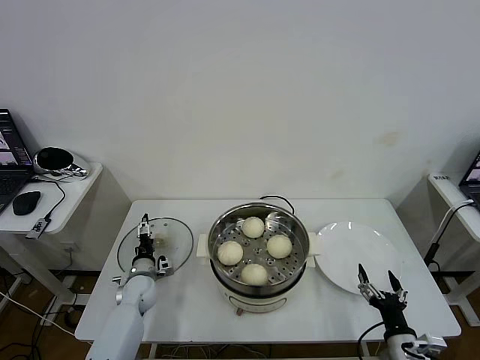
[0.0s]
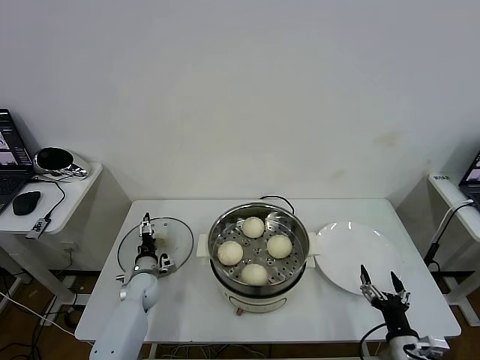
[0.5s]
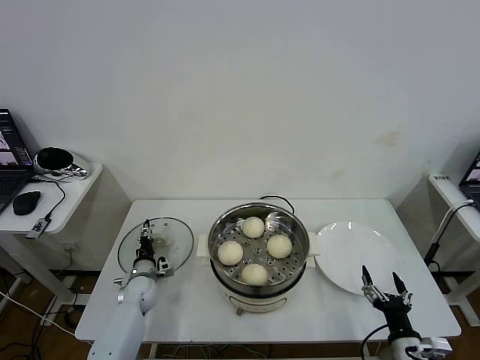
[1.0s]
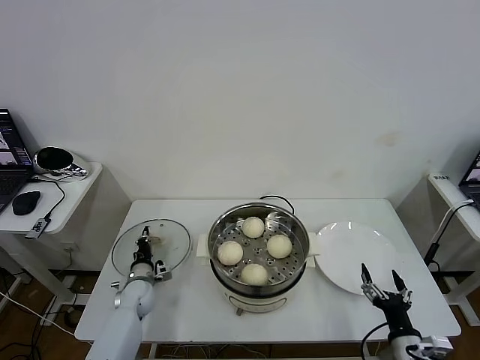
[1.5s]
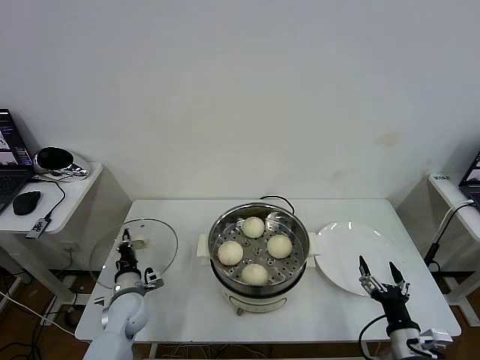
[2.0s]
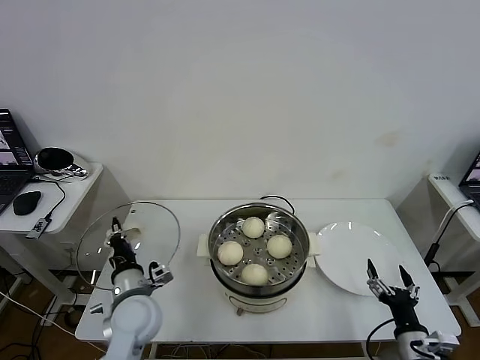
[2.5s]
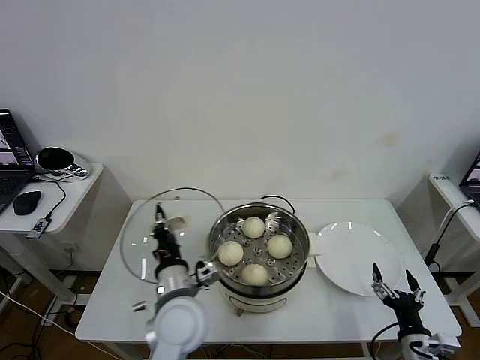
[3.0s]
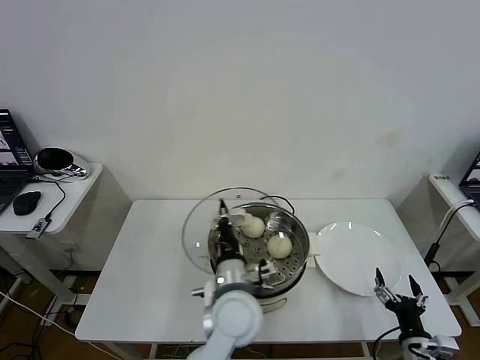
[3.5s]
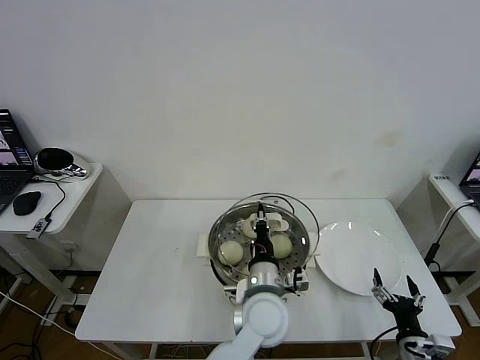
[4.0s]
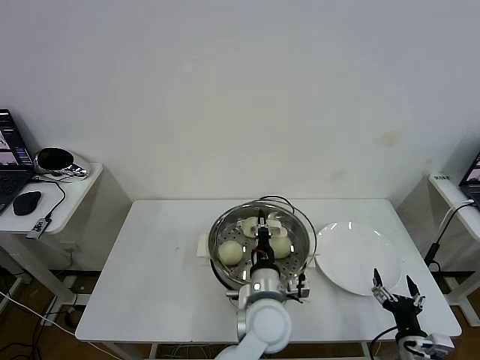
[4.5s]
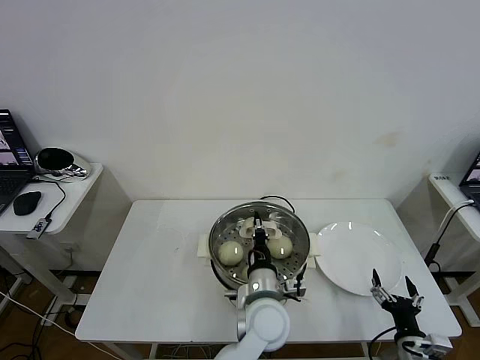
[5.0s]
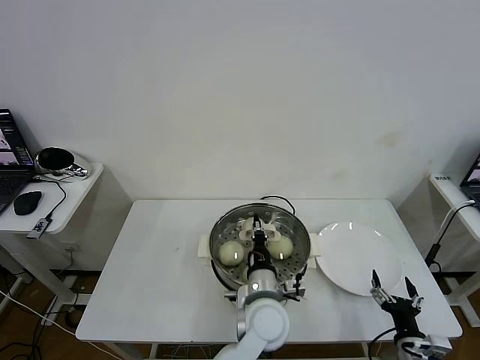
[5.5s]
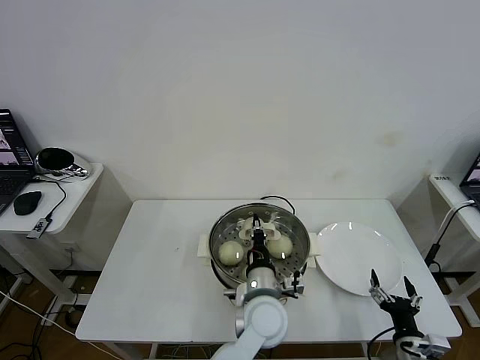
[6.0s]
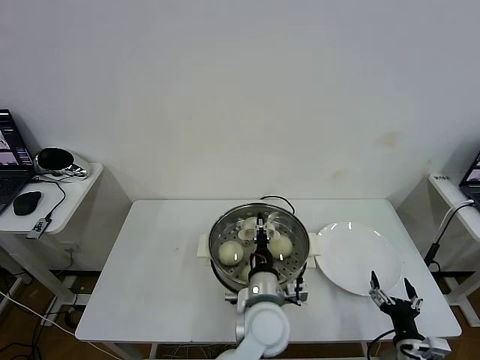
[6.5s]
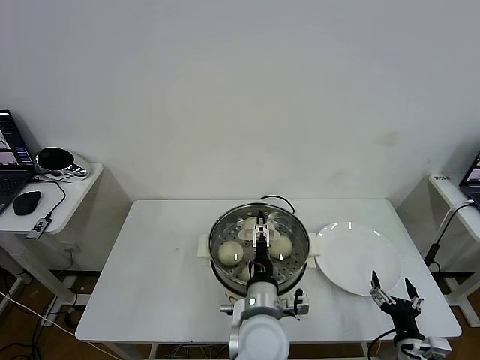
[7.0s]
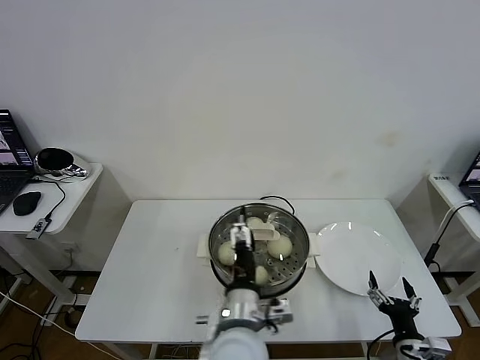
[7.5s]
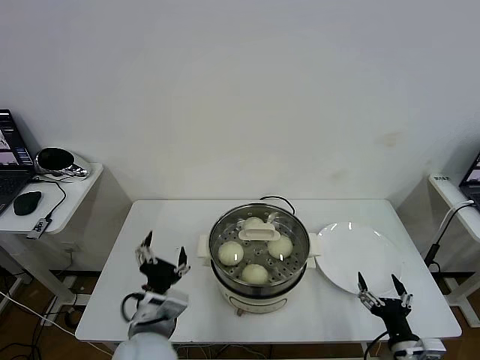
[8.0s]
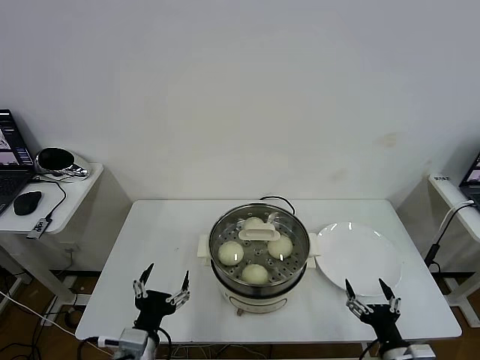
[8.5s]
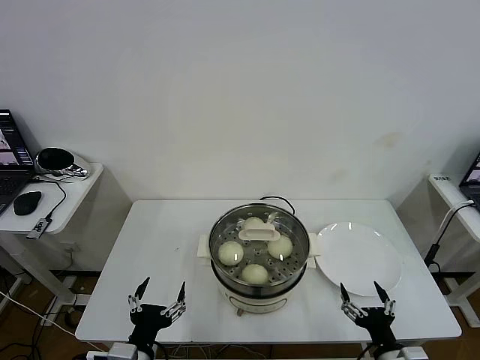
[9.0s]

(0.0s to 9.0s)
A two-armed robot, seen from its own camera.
Task of the whole recording: take steamed baozi put them in steamer then cover it.
Step, 2.0s - 6.5s: Place the pot lid on the steamer with left gripper.
0.0s - 2.0s: The left gripper is displaced backward by some 5 cm, and closes its fingers.
2.0s - 4.5s: The left gripper heads to the right and upward, covering approximately 35 cm.
4.5s - 7.0s: The left gripper opens up.
7.0s - 9.0s: The left gripper moves to the left and backward, approximately 30 cm; the right gripper moves some 5 cm.
